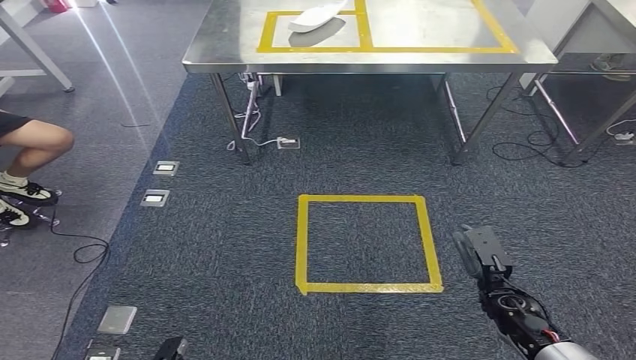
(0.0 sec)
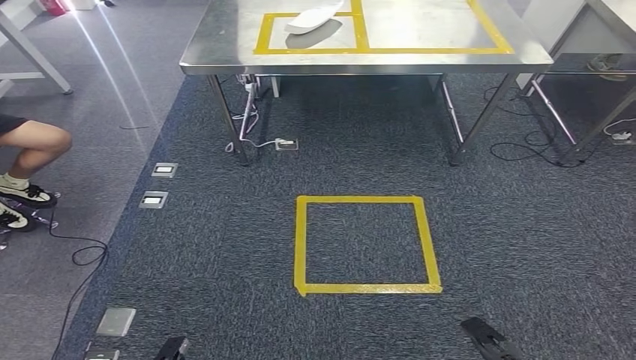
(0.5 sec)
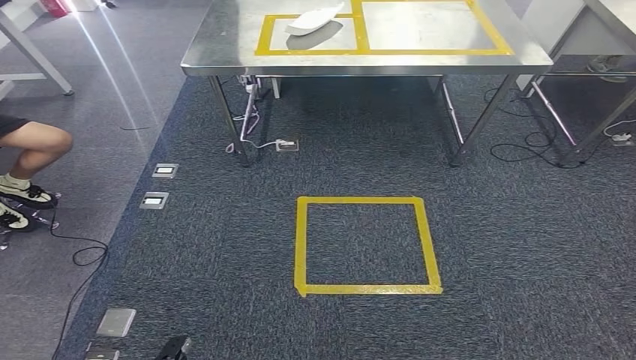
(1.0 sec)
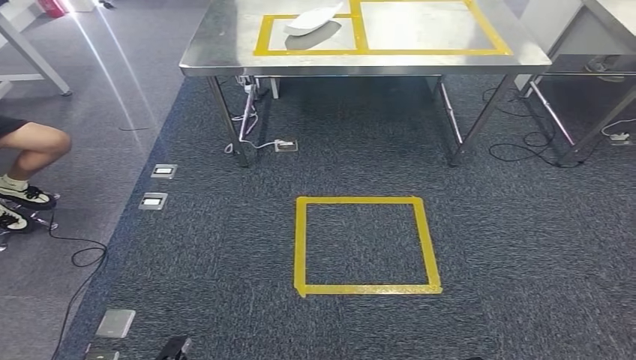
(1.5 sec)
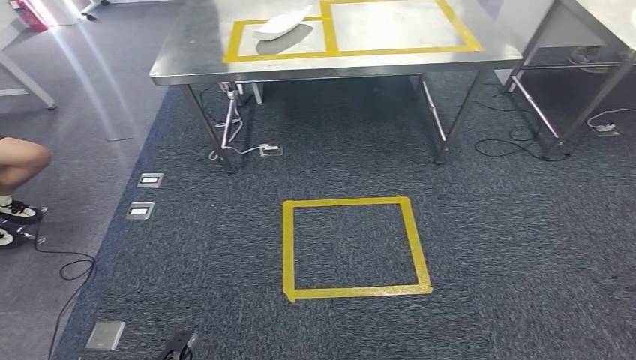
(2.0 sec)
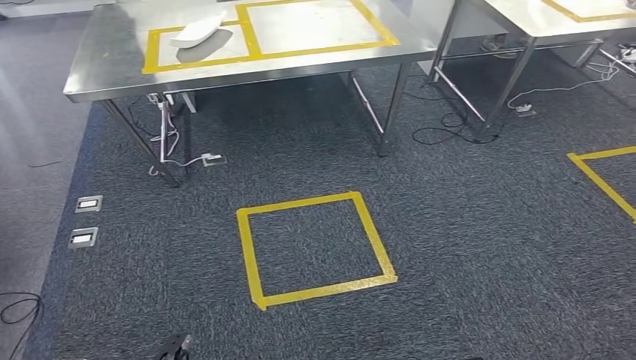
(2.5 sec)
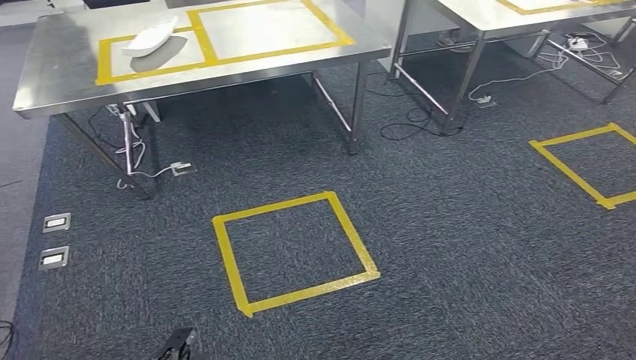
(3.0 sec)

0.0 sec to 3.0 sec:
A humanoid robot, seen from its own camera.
Step, 0.0 sec to 3.0 sec: Return to the initial position at the workbench.
0.0 sec to 1.5 sec: The right hand travels backward and downward by approximately 25 cm.
